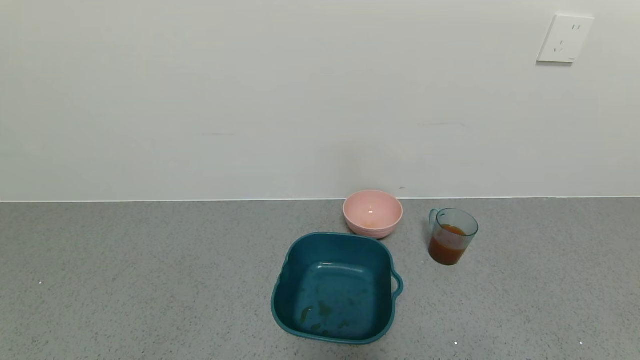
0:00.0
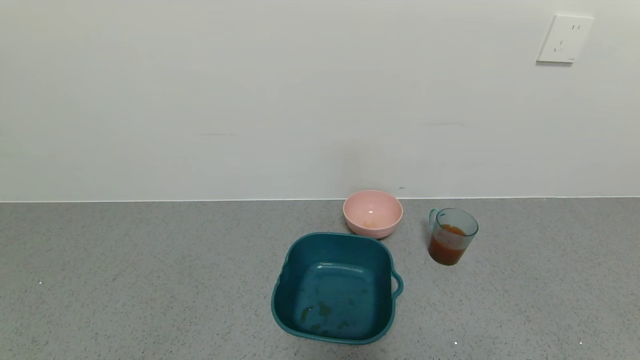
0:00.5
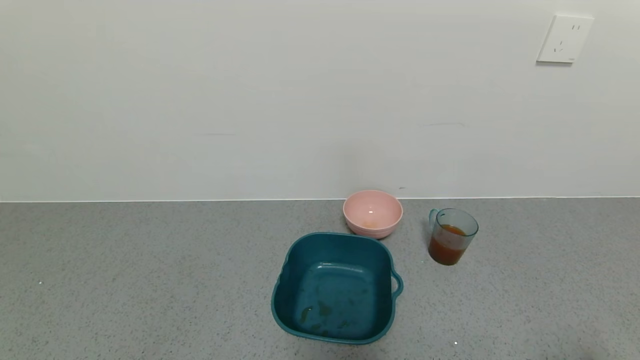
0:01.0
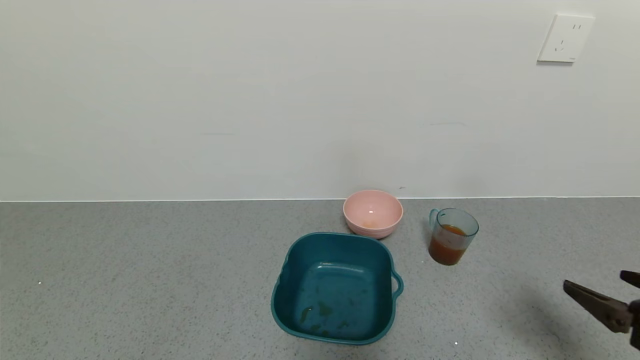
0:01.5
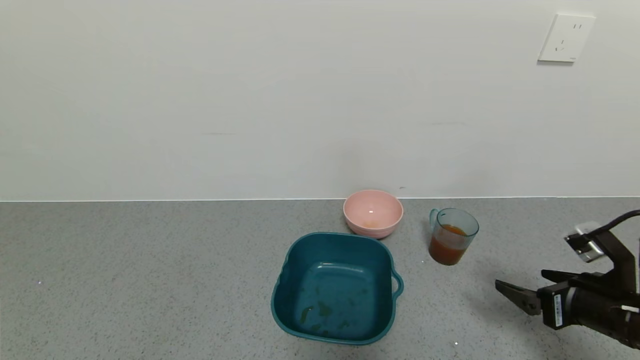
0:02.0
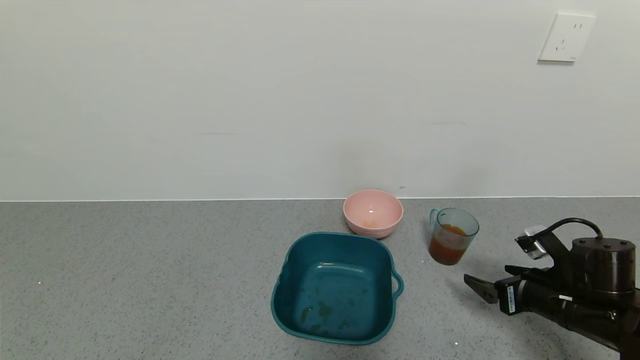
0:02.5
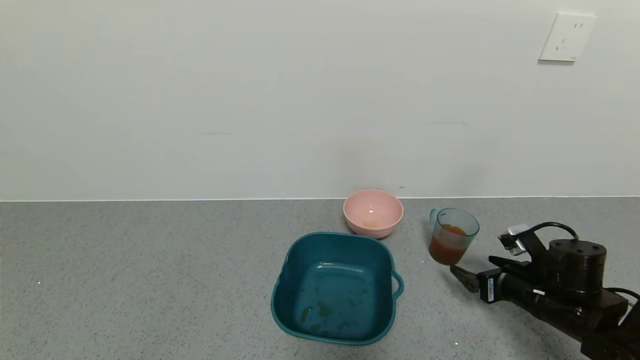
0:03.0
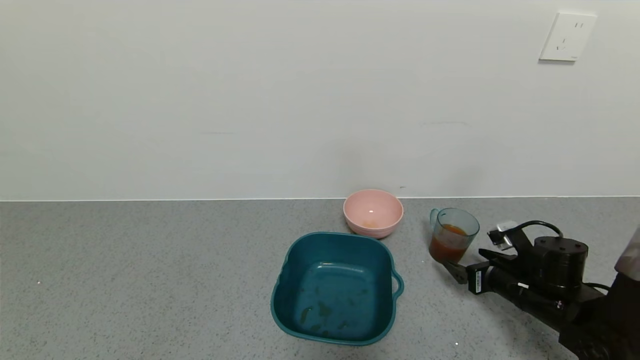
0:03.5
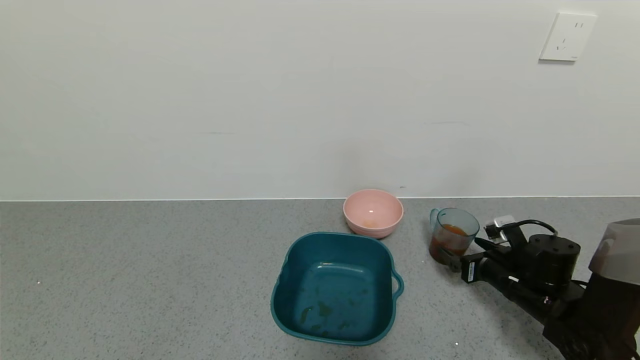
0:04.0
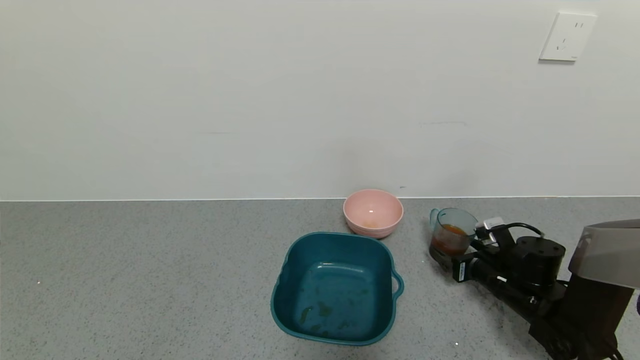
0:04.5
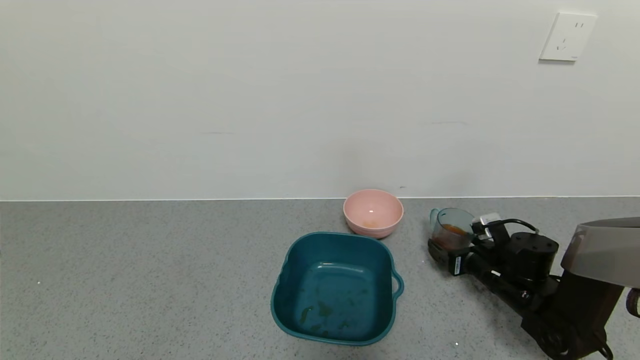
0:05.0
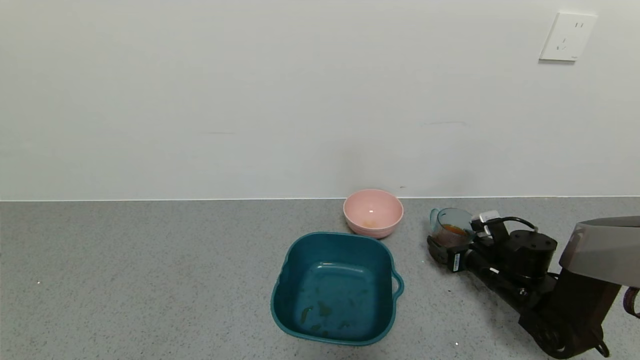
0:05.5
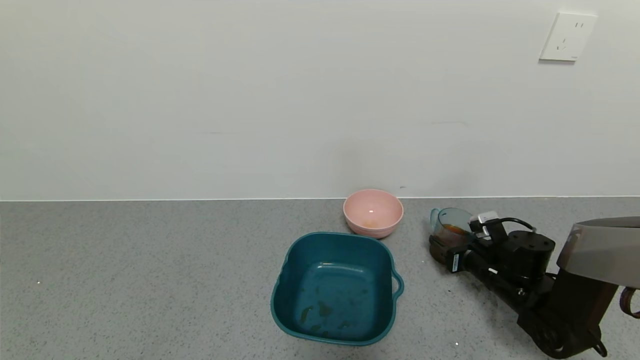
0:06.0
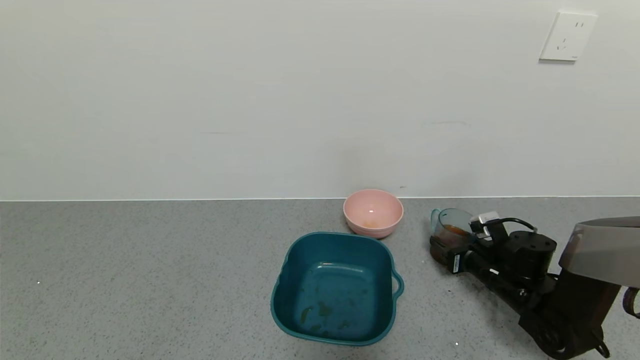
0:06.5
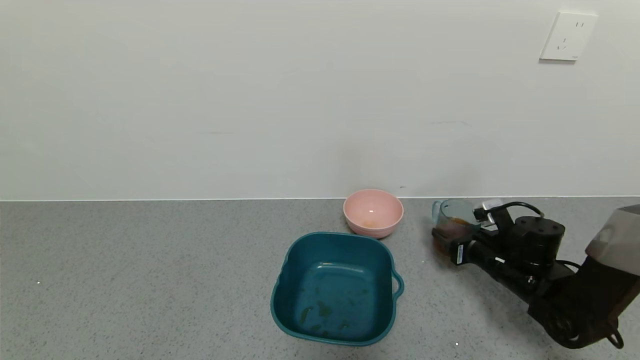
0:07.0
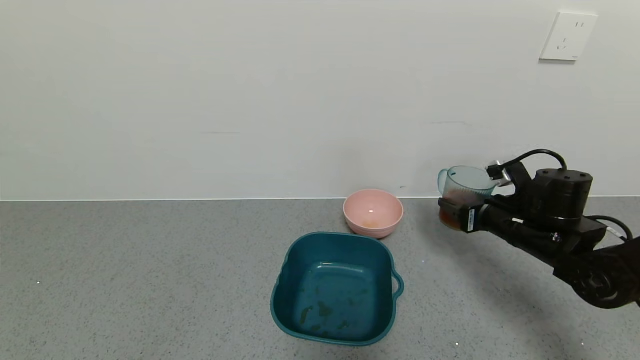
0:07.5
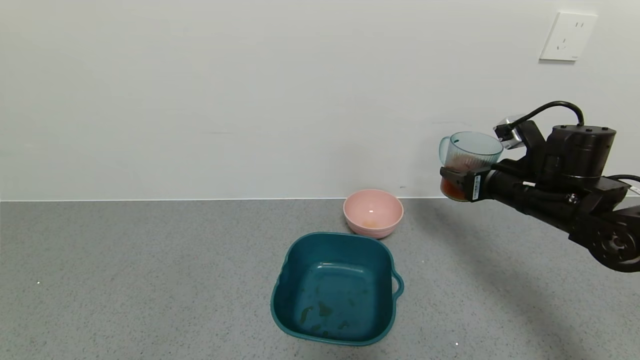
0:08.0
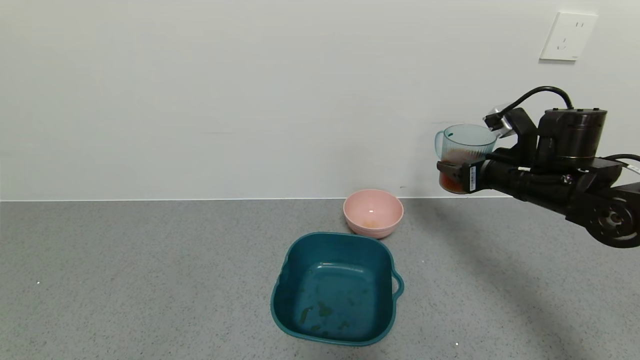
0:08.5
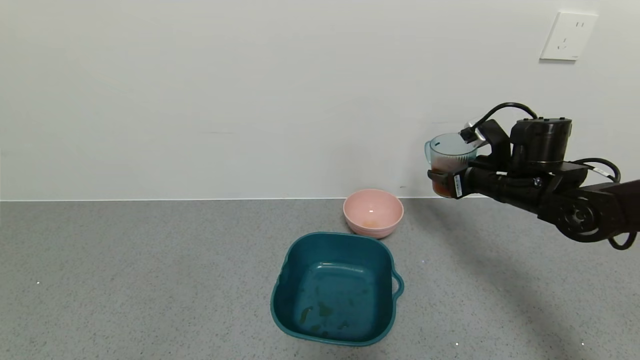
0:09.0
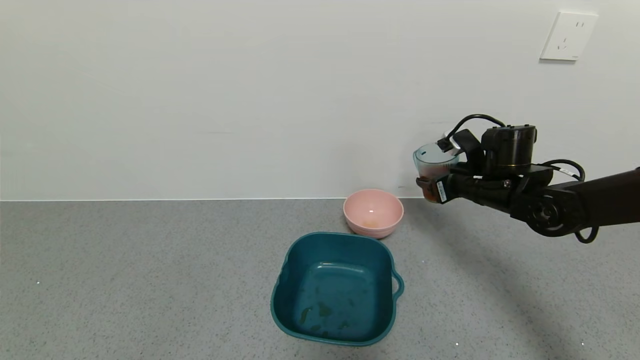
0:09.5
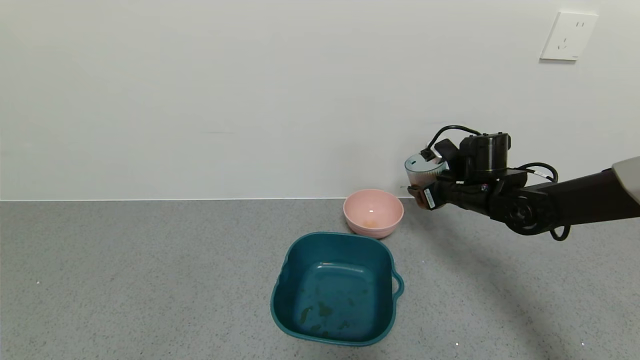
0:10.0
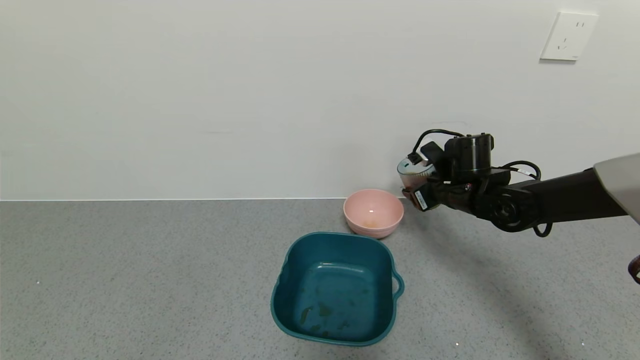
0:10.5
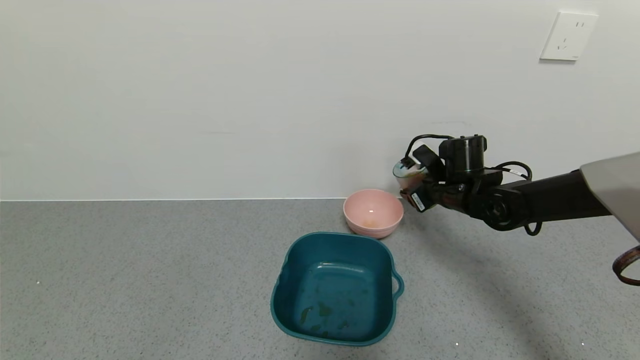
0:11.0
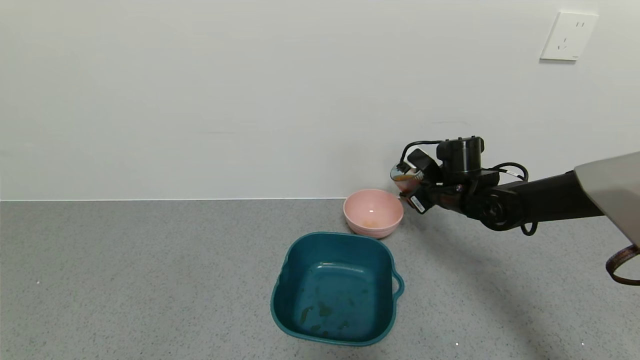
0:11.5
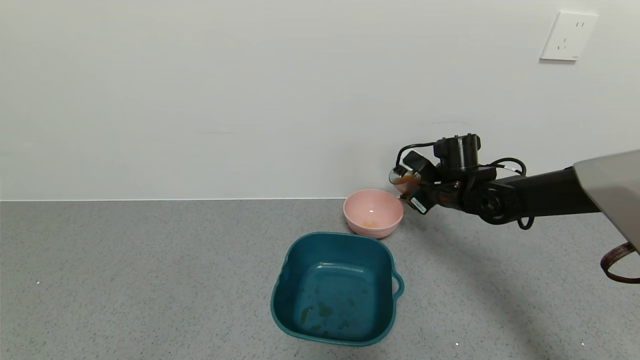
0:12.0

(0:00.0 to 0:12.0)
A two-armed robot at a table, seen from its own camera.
Task of the whole recording: use a gripper to pick up the cup and pour the liquid into a bowl or tray.
Step, 0:00.0 - 0:06.5: Pick up blue cup filled with orange juice with right gripper.
0:00.0 - 0:02.0: The right gripper is displaced forward by about 20 cm.
0:02.0 - 0:04.0: The right gripper is displaced forward and downward by roughly 15 cm.
0:04.0 - 0:06.0: The right gripper closes up.
0:06.0 - 0:08.0: The right gripper shifts approximately 20 cm upward.
0:08.0 - 0:10.0: The right gripper goes about 10 cm forward and to the left.

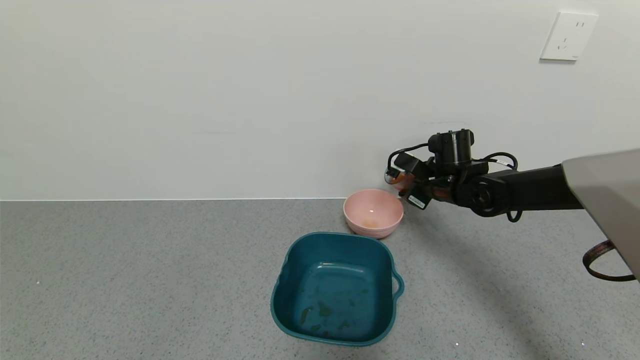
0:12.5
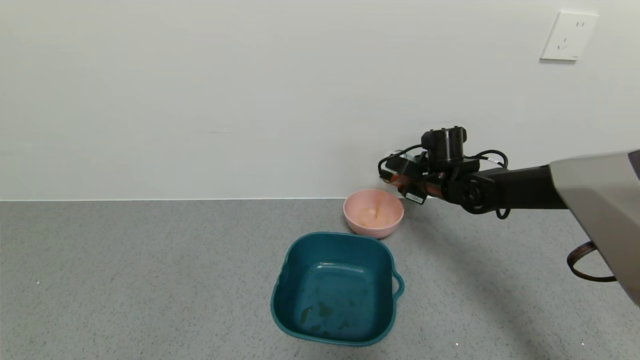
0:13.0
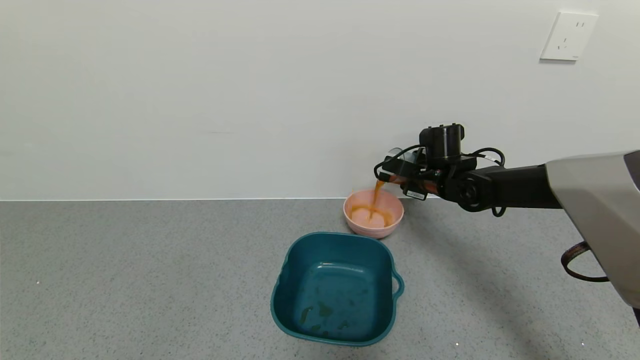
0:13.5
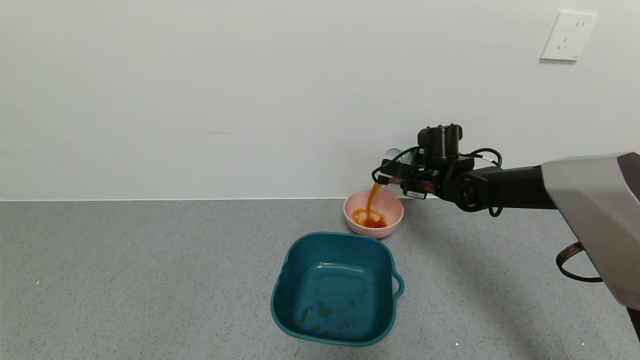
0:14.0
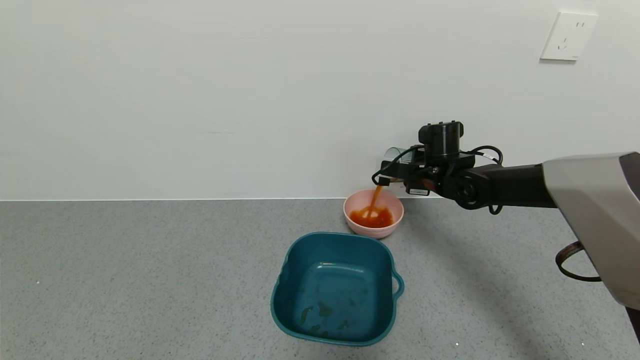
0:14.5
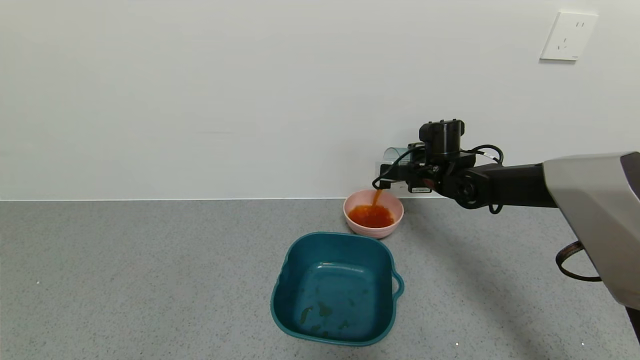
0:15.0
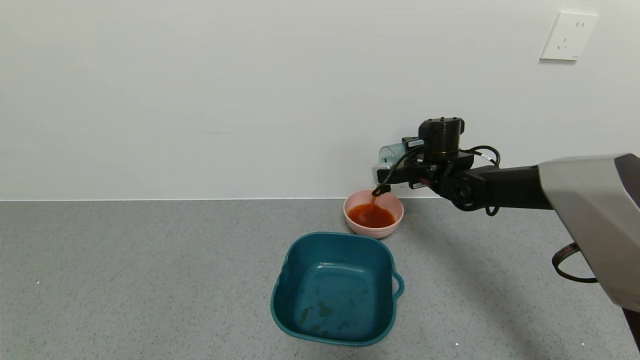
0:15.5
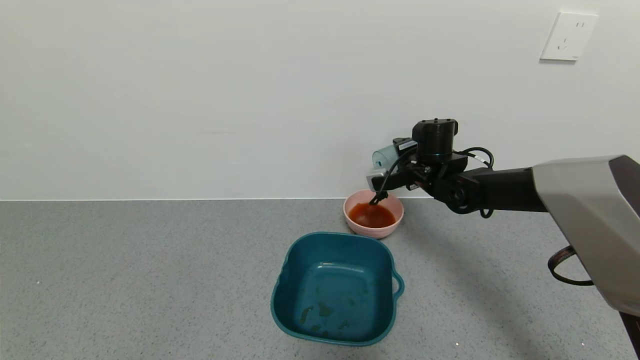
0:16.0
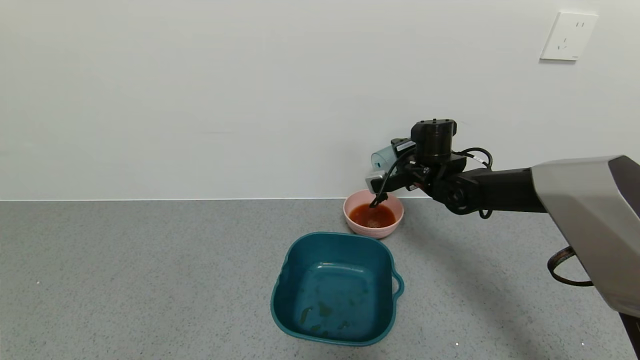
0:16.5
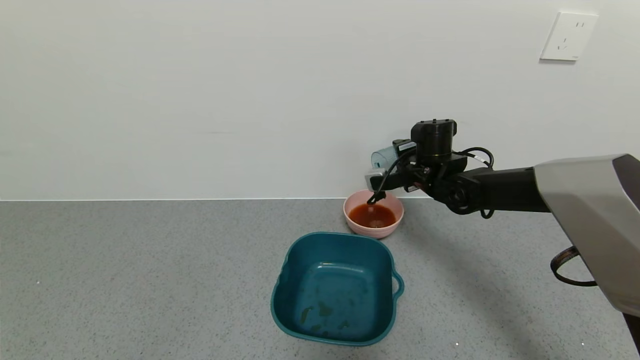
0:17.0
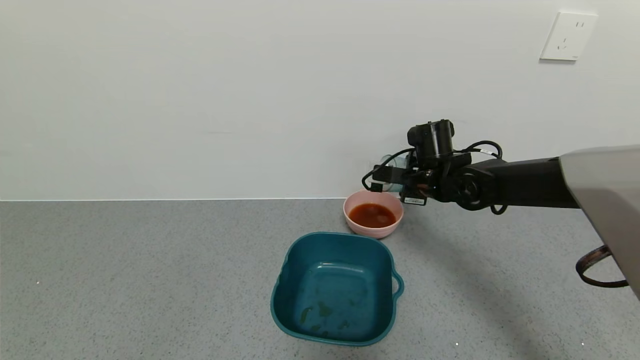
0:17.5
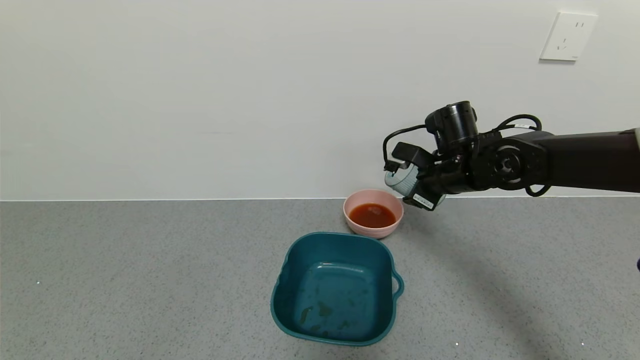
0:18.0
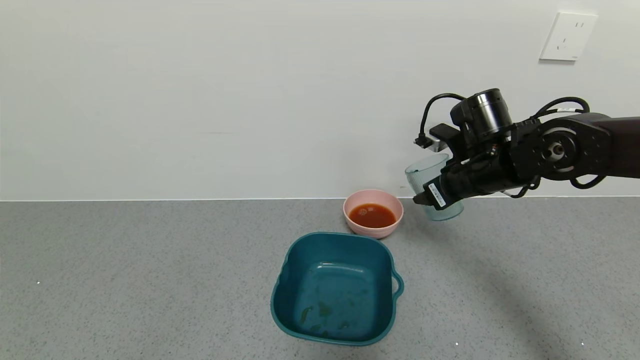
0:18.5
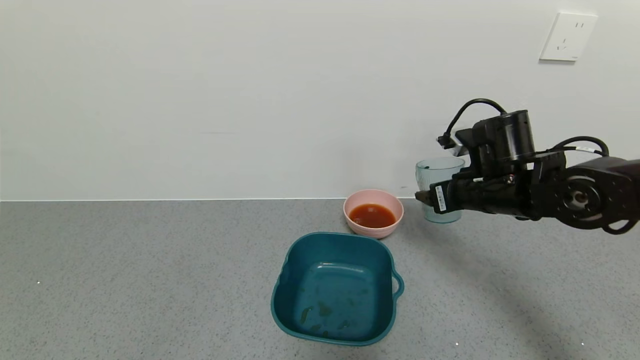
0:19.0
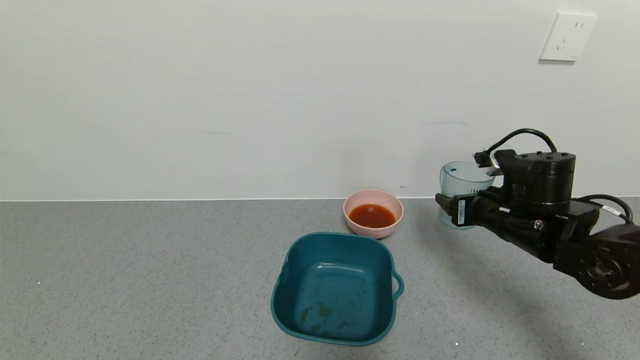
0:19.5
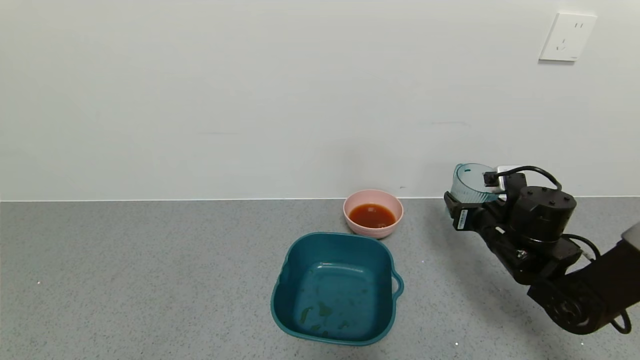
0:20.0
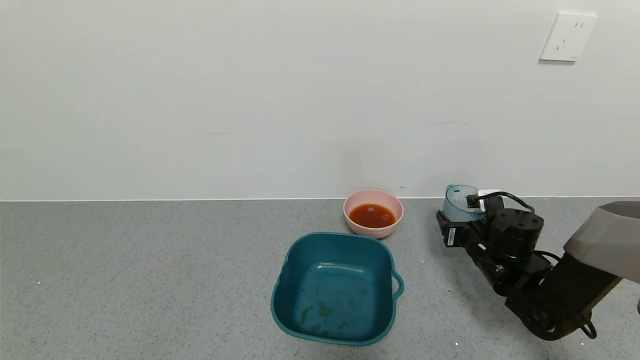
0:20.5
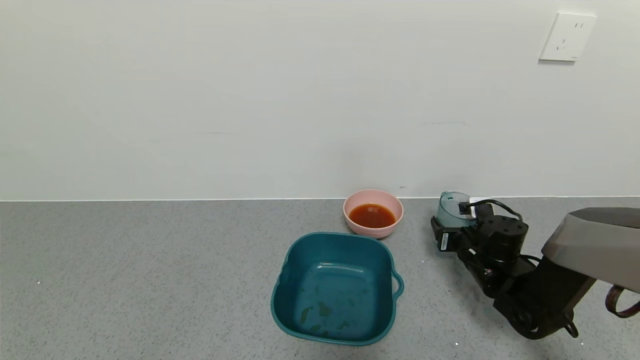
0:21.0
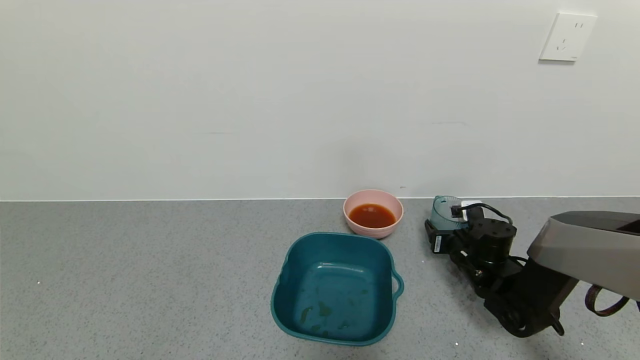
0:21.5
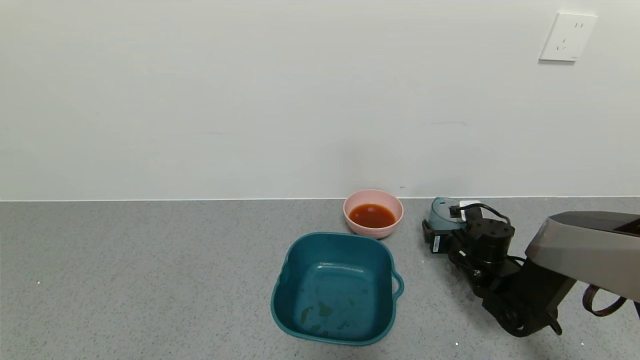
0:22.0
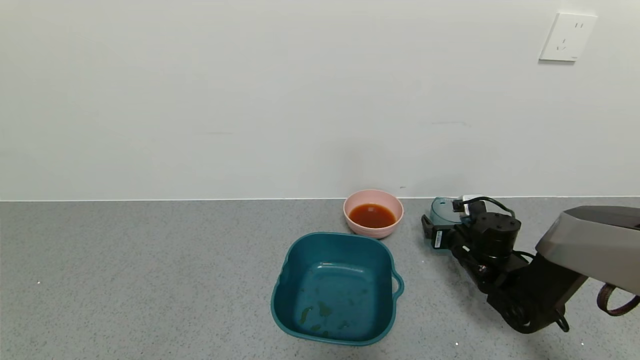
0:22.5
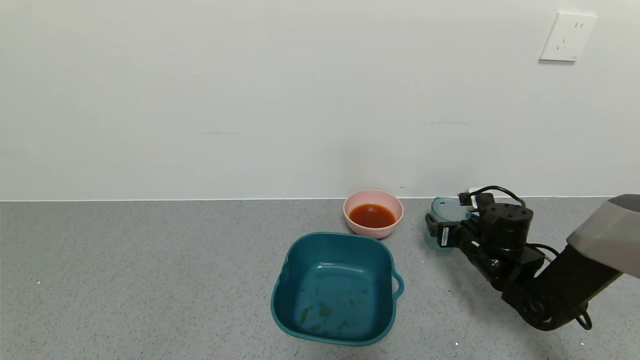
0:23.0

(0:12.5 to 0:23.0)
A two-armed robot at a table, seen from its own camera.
Task of the whole recording: use a gripper to pick up the cup and pour the liquid into a bowl or tray.
Step, 0:12.5 - 0:15.5: Pour the orange juice into the pink bowl with right gripper.
Step, 0:16.0 - 0:22.0: Place blue cup with orange juice on the table with right gripper.
0:16.5 - 0:19.0: The right gripper heads backward and to the right, covering about 15 cm.
0:19.0 - 0:21.0: The right gripper goes about 15 cm downward.
0:21.0 - 0:23.0: The right gripper opens up.
